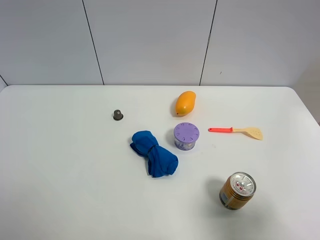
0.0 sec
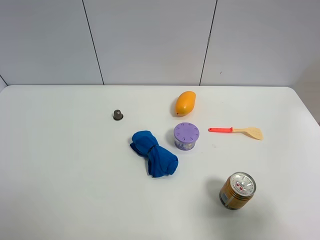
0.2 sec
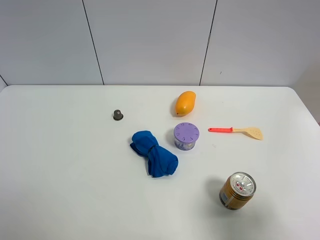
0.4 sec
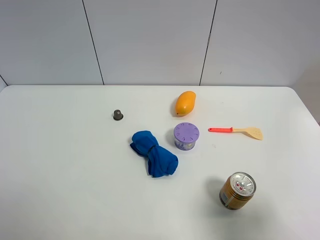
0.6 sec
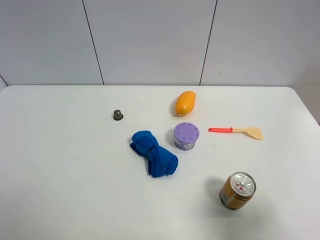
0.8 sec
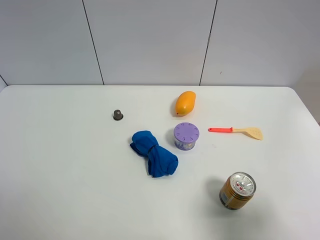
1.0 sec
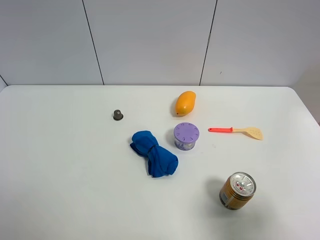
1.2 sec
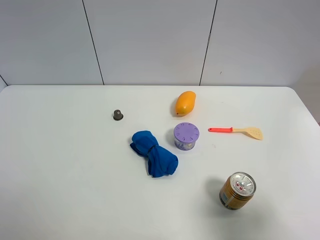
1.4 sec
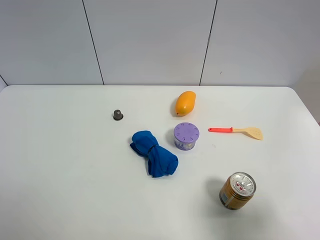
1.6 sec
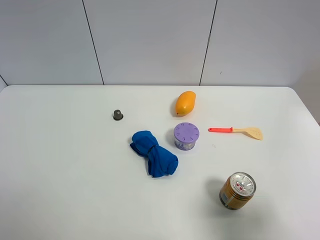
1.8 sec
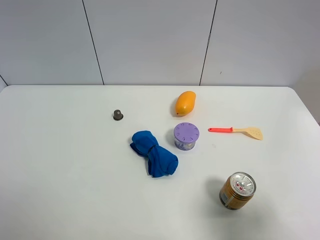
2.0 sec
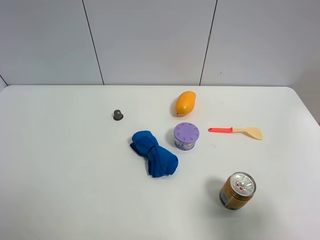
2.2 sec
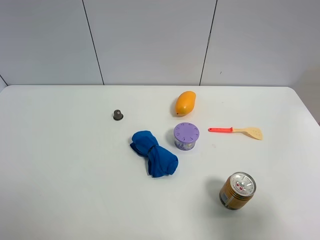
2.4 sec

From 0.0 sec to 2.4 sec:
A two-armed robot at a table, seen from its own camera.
Task of the whole recording: the gripper move the object.
From 1.2 sec to 2.4 sec: Both grippers stay put.

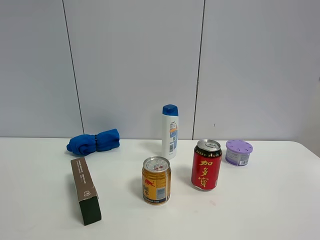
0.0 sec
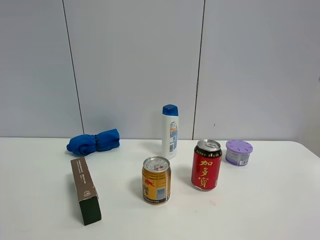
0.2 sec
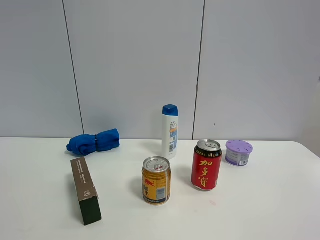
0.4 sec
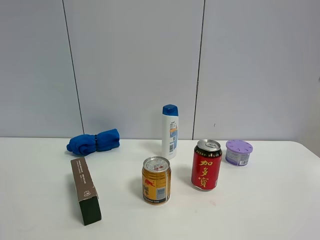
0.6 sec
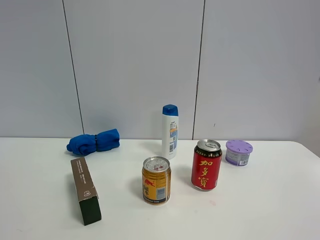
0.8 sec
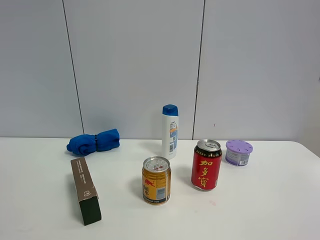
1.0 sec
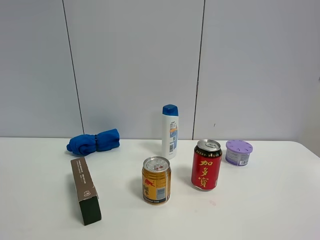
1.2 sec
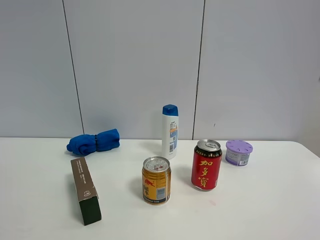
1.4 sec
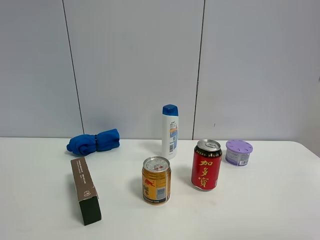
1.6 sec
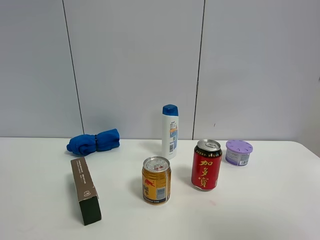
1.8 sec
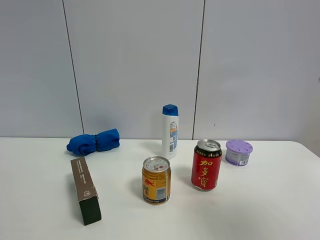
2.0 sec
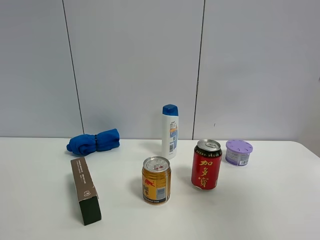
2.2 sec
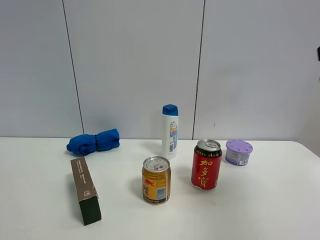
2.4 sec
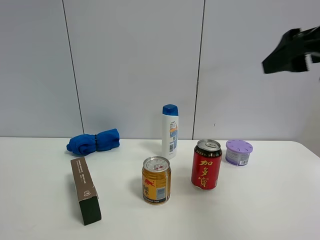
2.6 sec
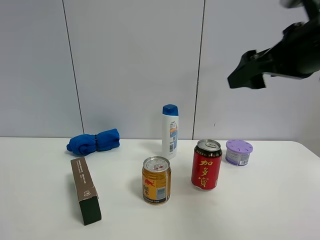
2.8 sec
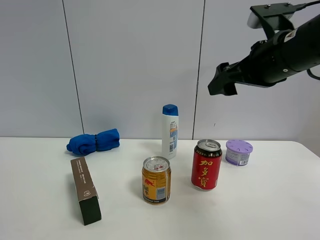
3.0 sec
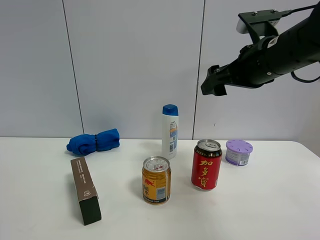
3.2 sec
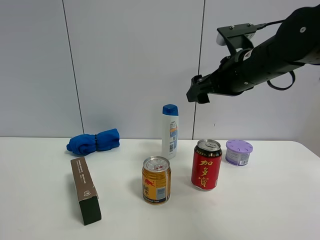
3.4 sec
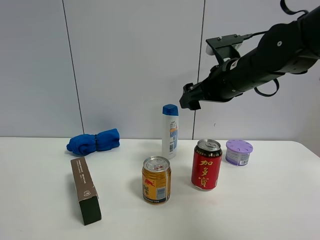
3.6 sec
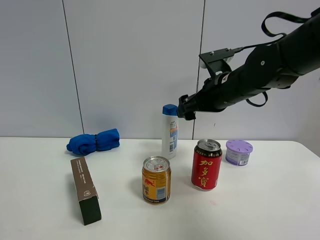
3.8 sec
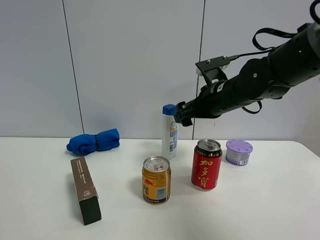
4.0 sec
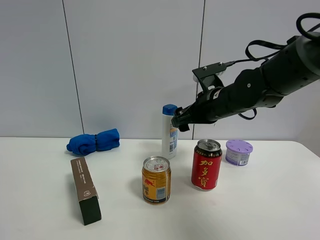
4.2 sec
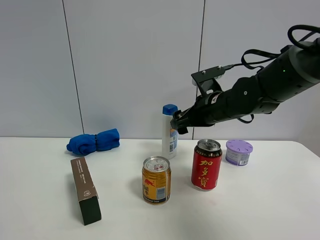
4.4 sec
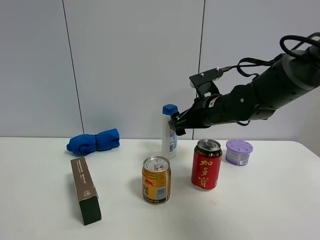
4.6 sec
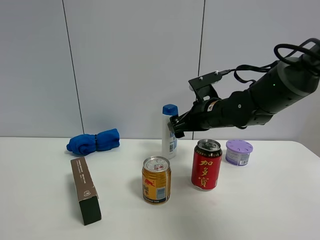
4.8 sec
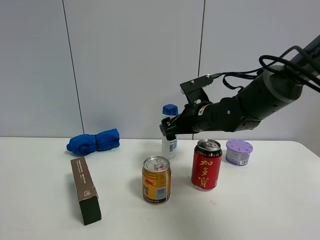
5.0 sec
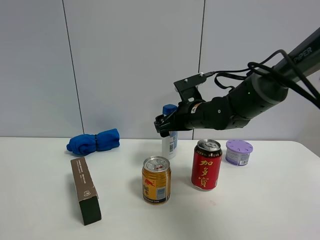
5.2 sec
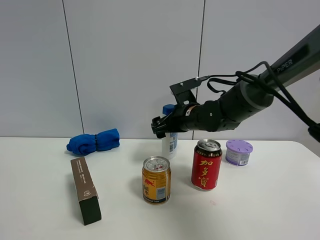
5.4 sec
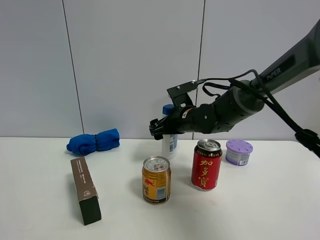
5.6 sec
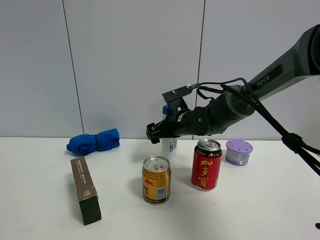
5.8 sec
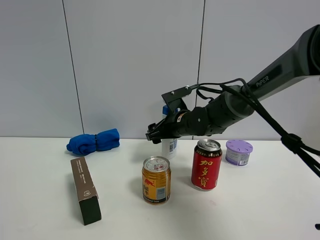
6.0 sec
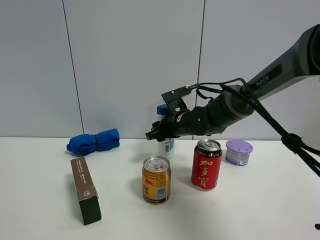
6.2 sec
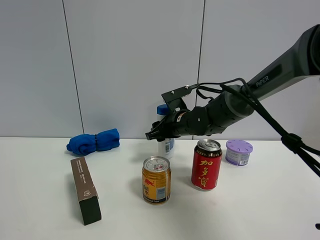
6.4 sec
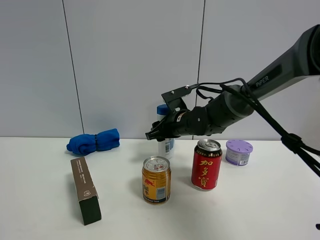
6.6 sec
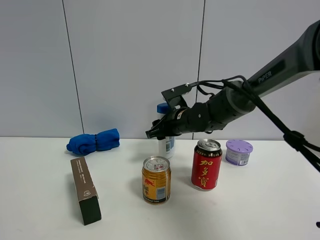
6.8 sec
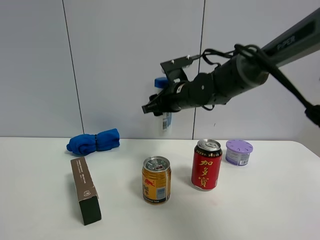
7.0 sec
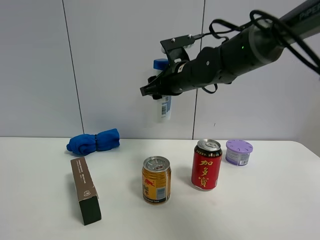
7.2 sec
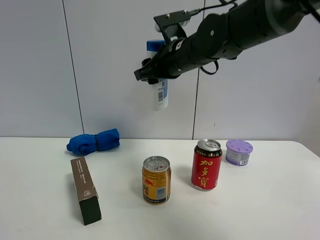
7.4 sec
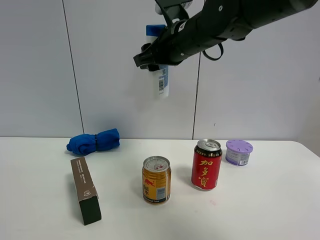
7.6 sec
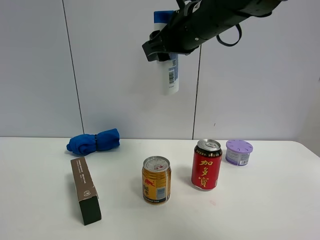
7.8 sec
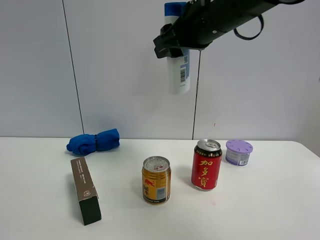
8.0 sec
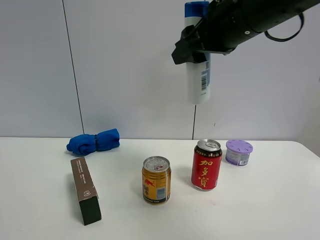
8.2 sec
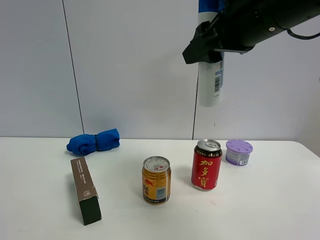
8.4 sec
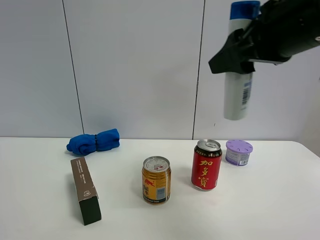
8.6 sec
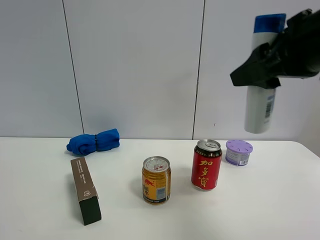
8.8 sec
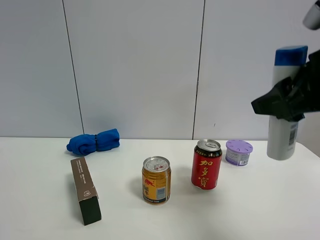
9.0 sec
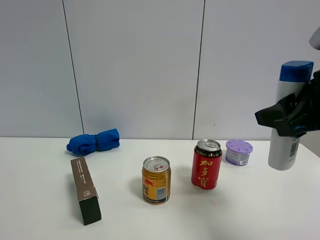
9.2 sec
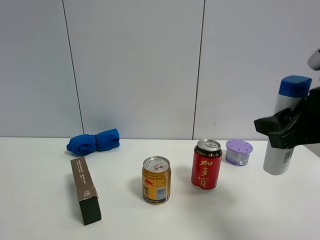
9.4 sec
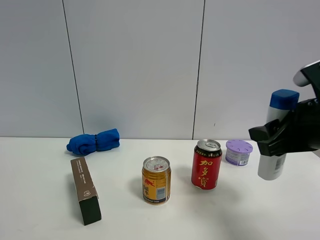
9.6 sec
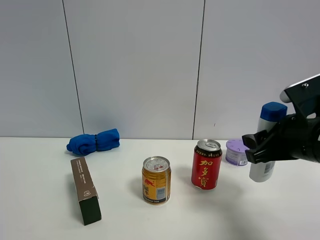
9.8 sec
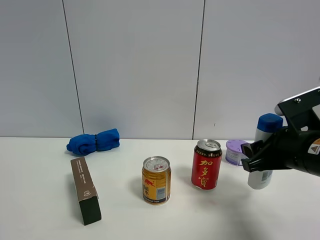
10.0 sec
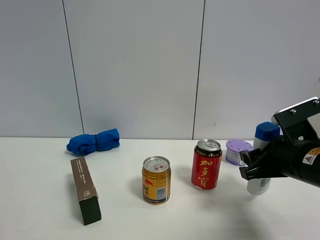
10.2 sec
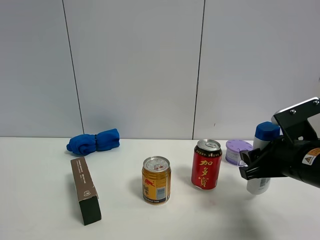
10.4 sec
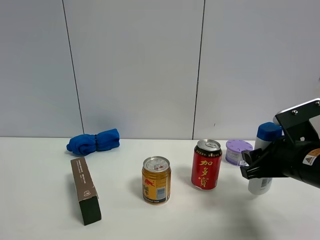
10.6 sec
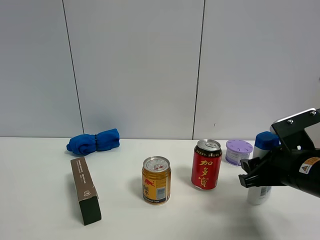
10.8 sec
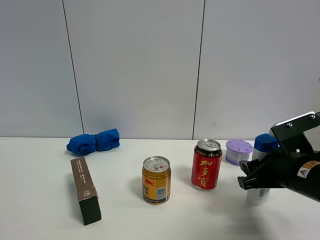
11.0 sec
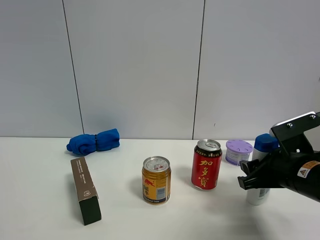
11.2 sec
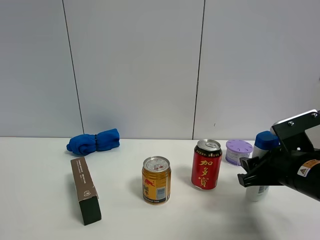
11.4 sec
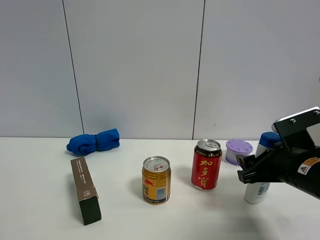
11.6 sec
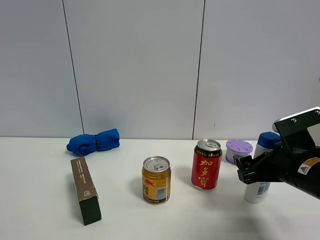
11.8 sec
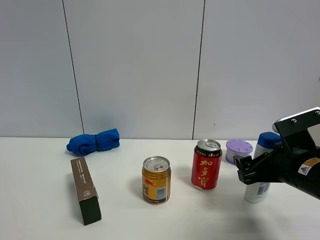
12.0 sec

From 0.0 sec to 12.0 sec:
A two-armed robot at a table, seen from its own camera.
Task of the whole recording: the gripper move the object.
Step, from 0.0 sec to 6.4 sec: Grasp the shampoo with the right gripper.
Step, from 6.6 sec to 12.0 sec: Place the shampoo on the table with the right gripper.
From 1.6 sec to 3.0 sec: The right gripper shifts roughly 30 cm forward and to the left.
From 3.0 sec to 4.4 sec: The right gripper heads downward, forward and to the left, covering about 15 cm.
From 4.4 sec to 6.0 sec: The right gripper goes some 10 cm downward, to the left and forward, and closes.
From 6.0 sec to 7.6 sec: The right gripper goes about 20 cm upward, and closes.
From 7.6 sec to 9.0 sec: The right gripper moves backward and to the right, approximately 25 cm.
From 9.0 sec to 10.4 sec: The right gripper heads downward and forward, covering roughly 15 cm.
From 10.4 sec to 12.0 sec: The right gripper opens its fingers.

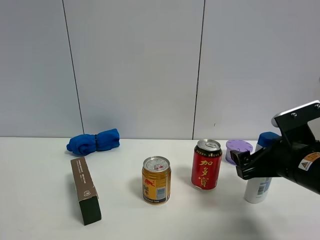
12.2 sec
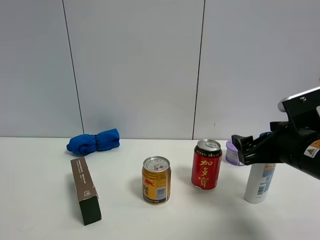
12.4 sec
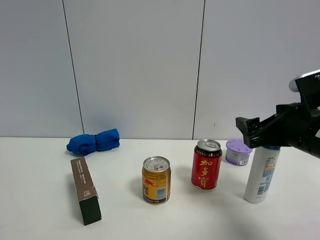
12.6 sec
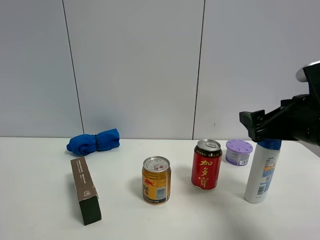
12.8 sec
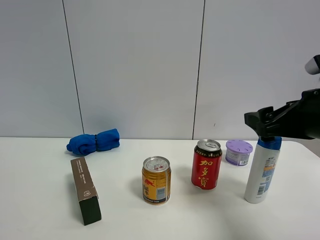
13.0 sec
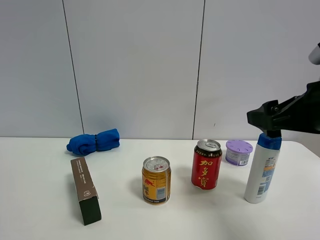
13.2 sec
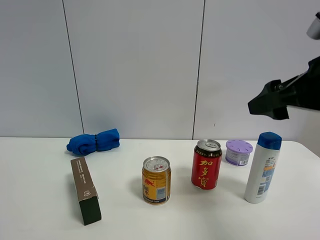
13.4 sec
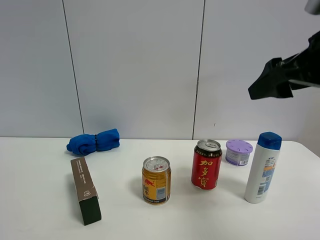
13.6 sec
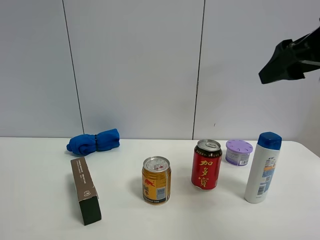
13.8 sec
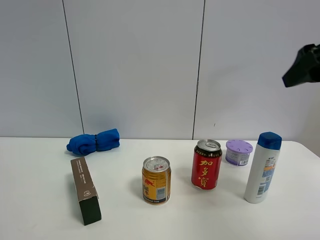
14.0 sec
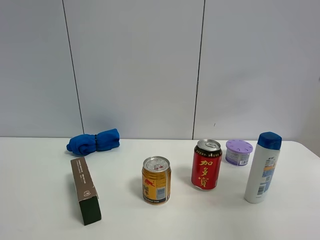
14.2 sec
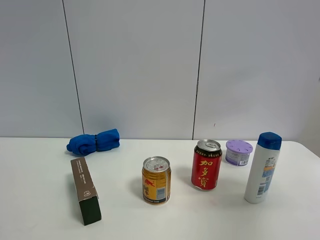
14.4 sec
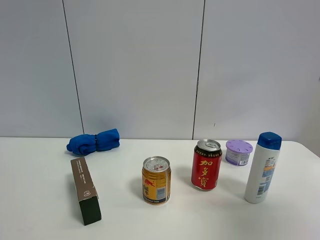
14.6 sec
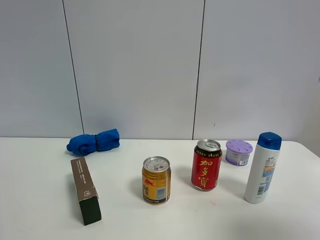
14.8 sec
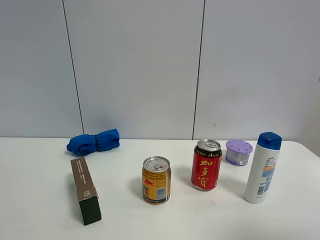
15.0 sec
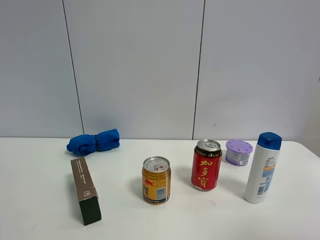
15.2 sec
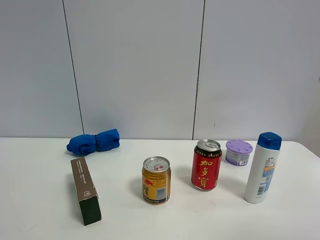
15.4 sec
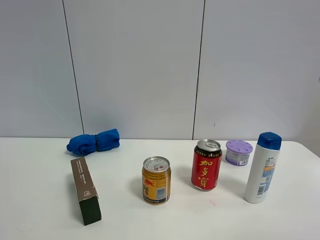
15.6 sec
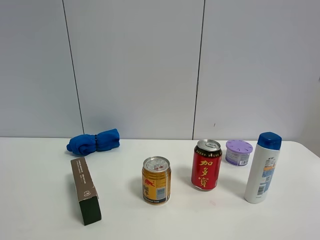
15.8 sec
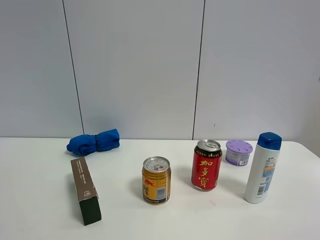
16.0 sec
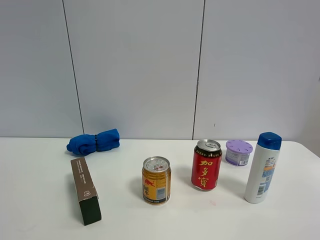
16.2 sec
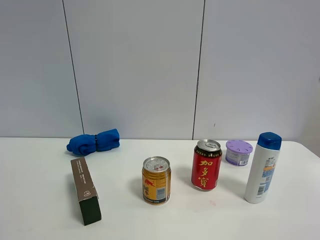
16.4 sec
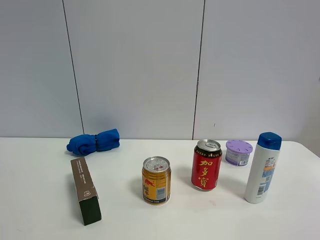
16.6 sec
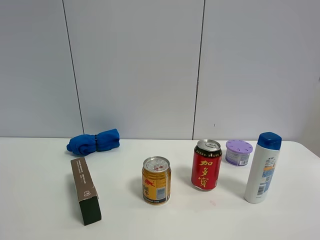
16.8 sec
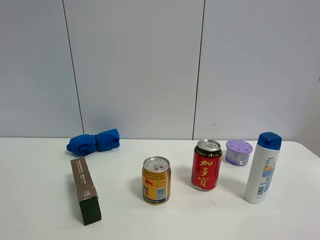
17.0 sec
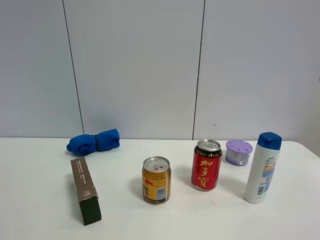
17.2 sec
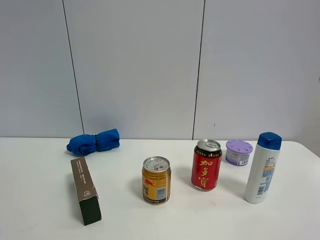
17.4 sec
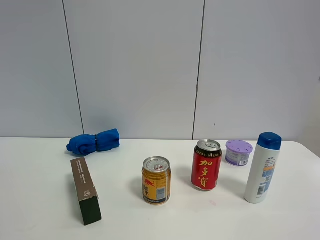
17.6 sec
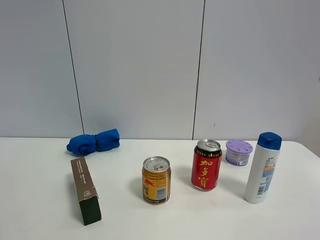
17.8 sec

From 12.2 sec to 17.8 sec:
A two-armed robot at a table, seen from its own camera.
Task of the whole recording: the gripper move the object.
From 12.2 sec to 13.6 sec: The right gripper is displaced upward by about 20 cm.
From 13.6 sec to 15.0 sec: The right gripper travels backward and to the right by about 20 cm.
From 15.0 sec to 16.4 sec: The right gripper goes roughly 10 cm downward and backward.
From 16.4 sec to 17.8 sec: The two grippers keep their place.
